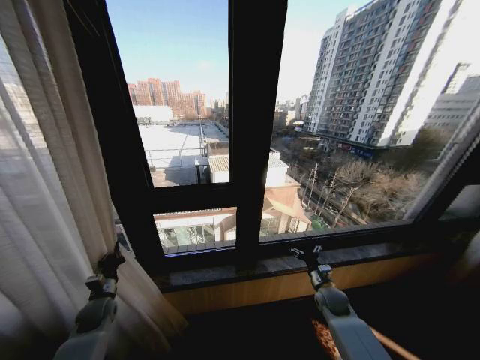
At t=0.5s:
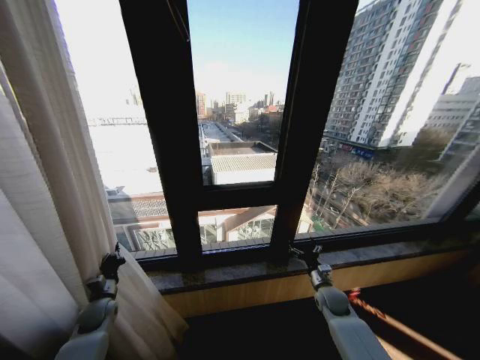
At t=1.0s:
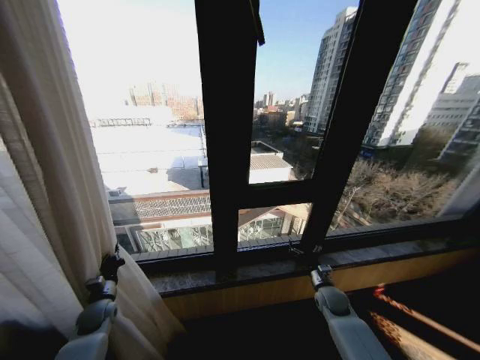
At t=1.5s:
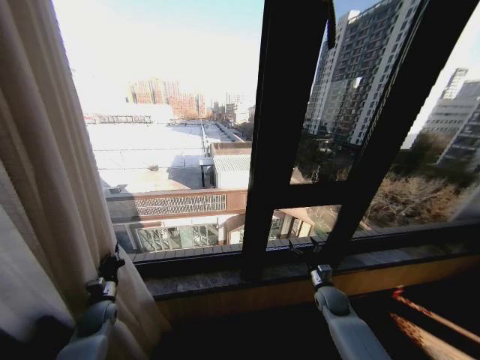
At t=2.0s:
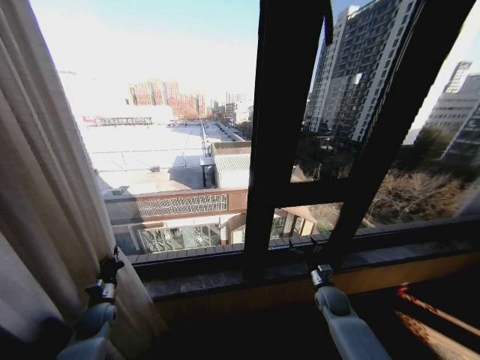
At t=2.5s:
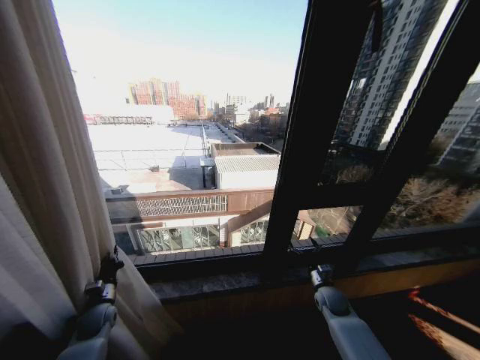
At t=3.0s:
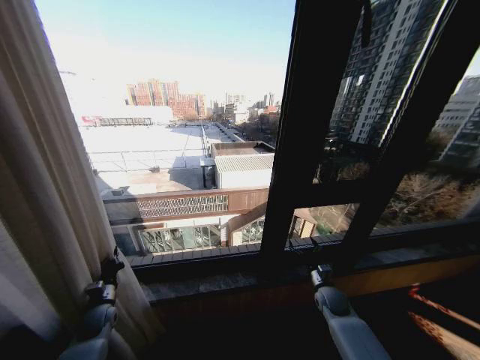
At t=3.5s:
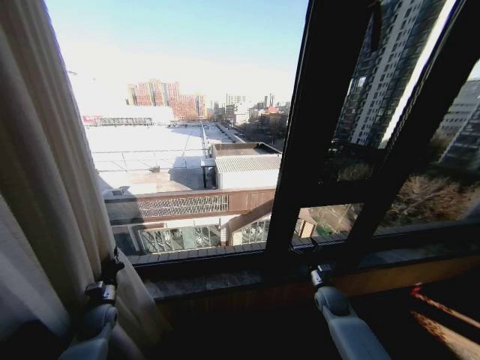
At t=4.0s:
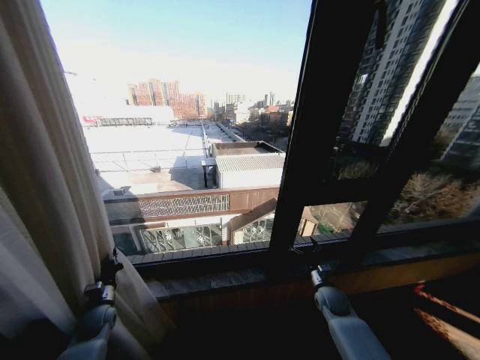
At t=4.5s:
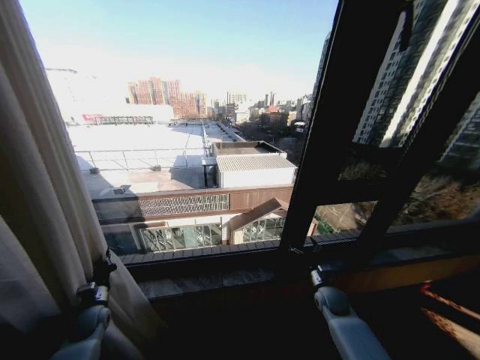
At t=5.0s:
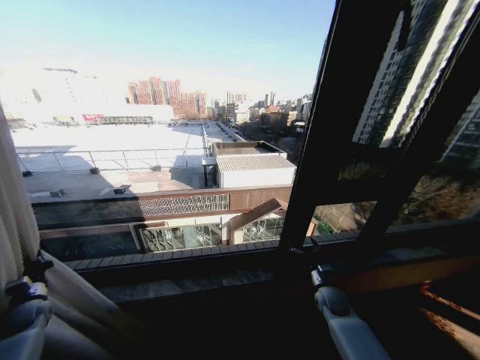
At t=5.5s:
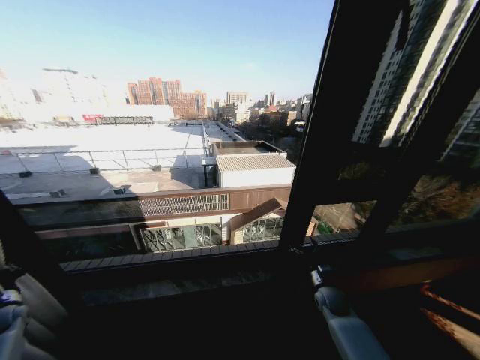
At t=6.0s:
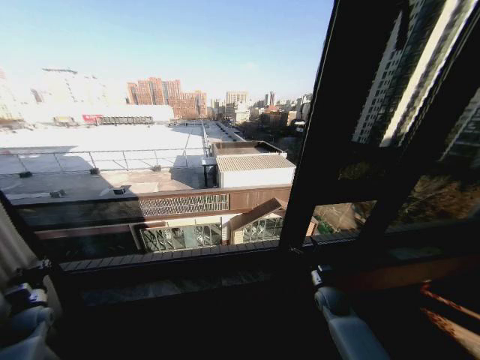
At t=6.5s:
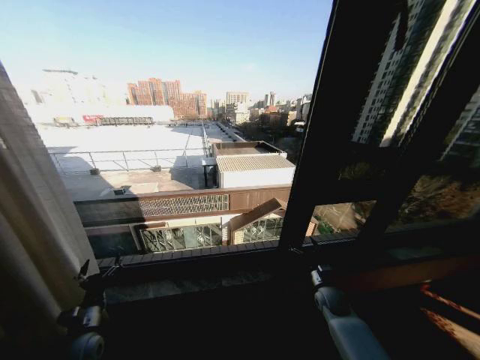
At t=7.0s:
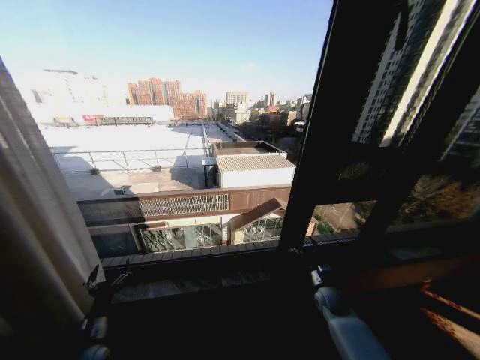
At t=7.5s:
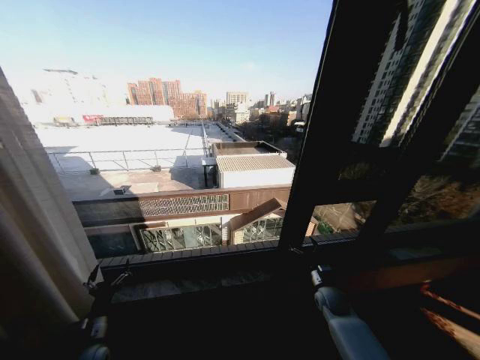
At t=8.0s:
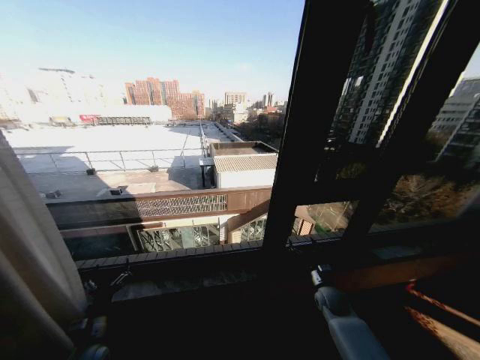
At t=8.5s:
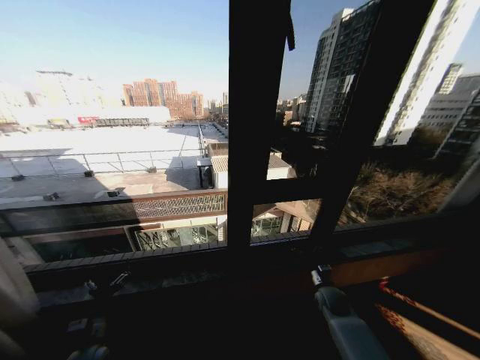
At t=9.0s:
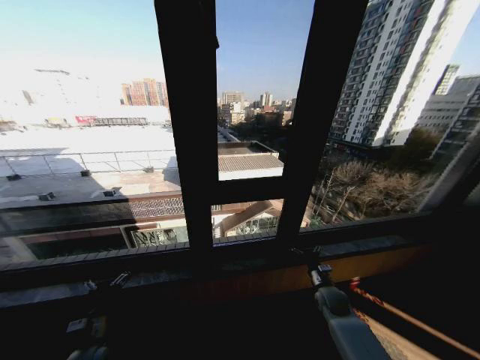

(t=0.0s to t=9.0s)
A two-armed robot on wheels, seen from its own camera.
Task of the whole recording: Open the curtains by pulling them apart, changing their state from closed to fully open.
t=4.5s - t=7.0s: The left gripper is displaced backward by roughly 10 cm, travels to the left and back again, about 20 cm each way, and opens.
